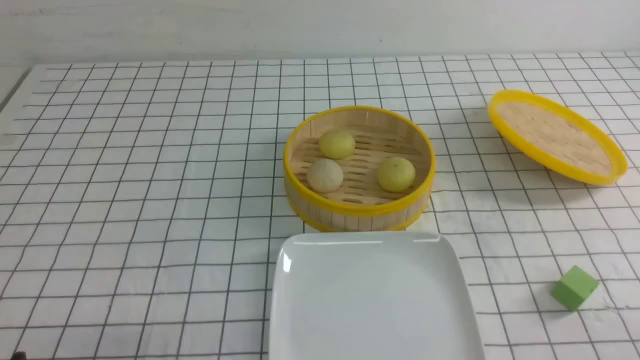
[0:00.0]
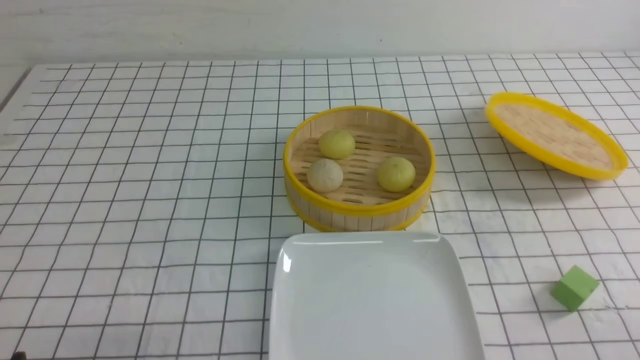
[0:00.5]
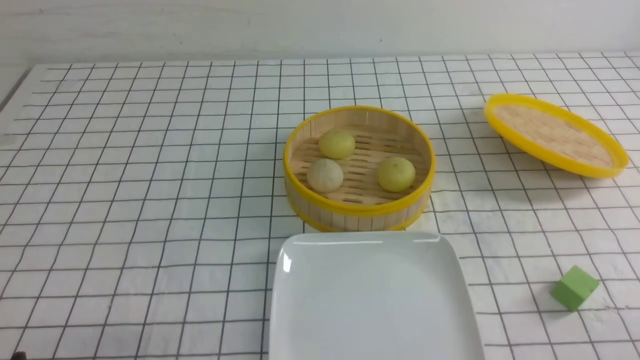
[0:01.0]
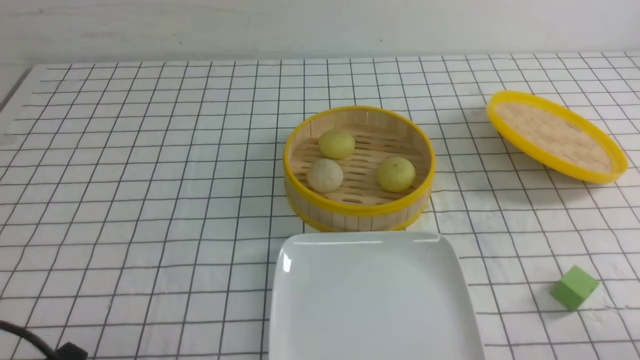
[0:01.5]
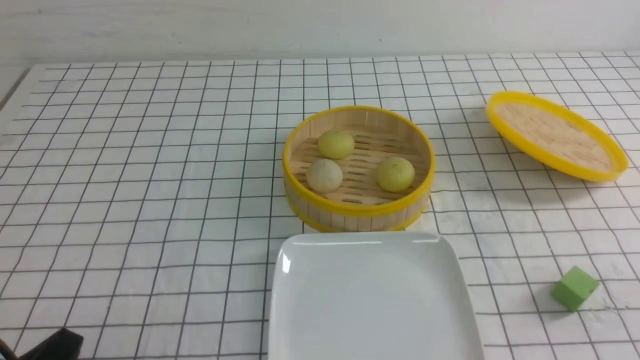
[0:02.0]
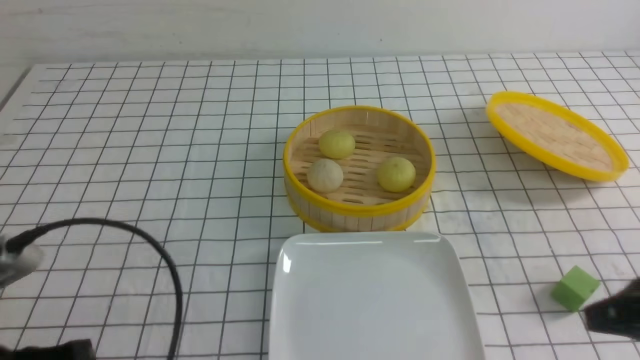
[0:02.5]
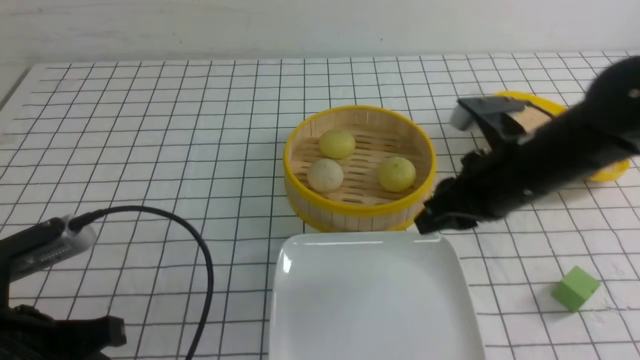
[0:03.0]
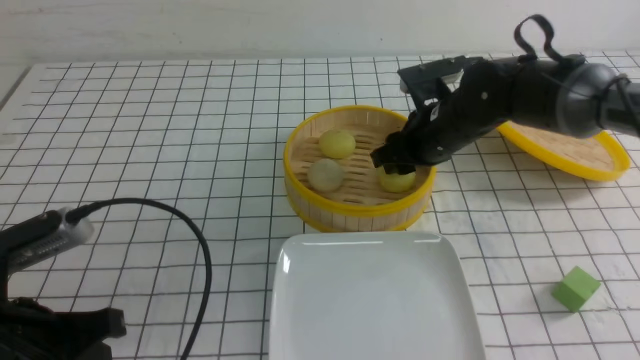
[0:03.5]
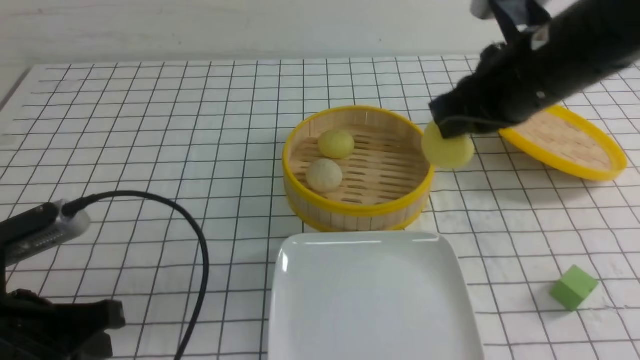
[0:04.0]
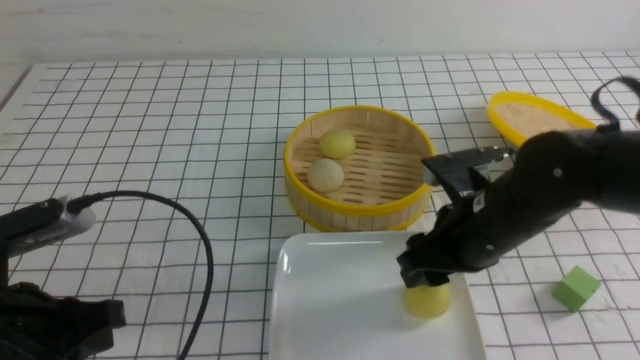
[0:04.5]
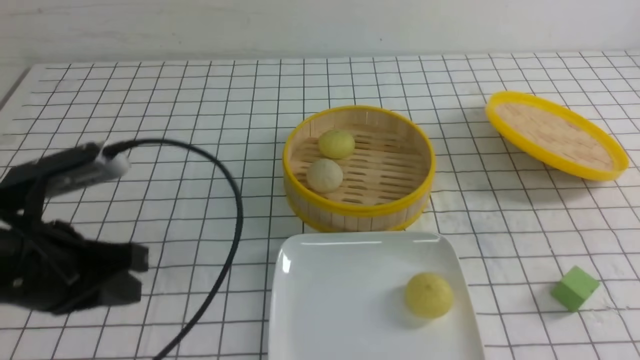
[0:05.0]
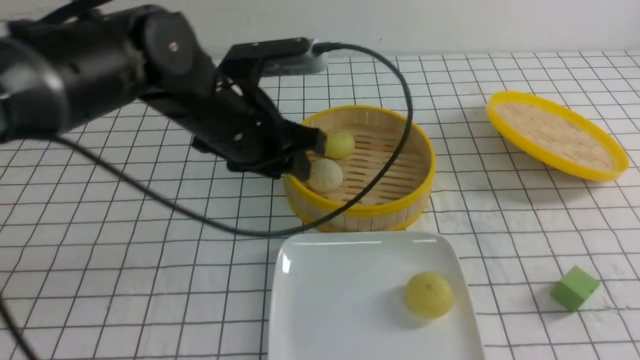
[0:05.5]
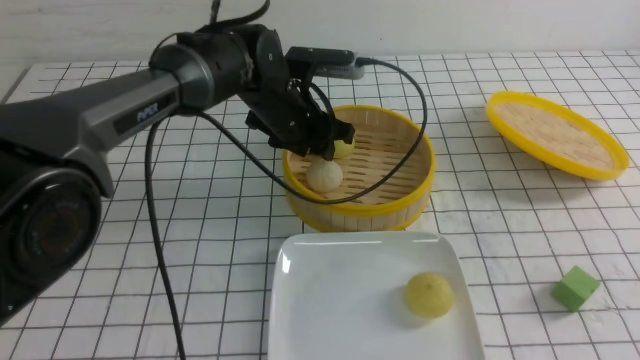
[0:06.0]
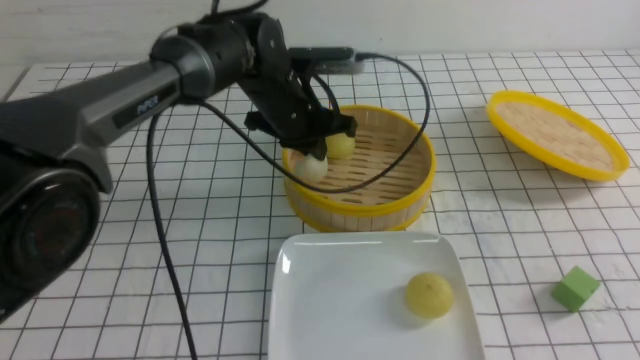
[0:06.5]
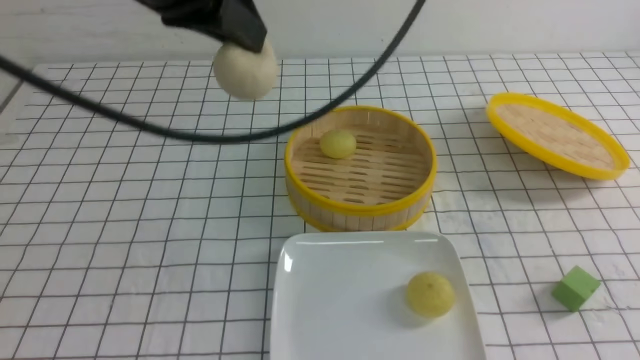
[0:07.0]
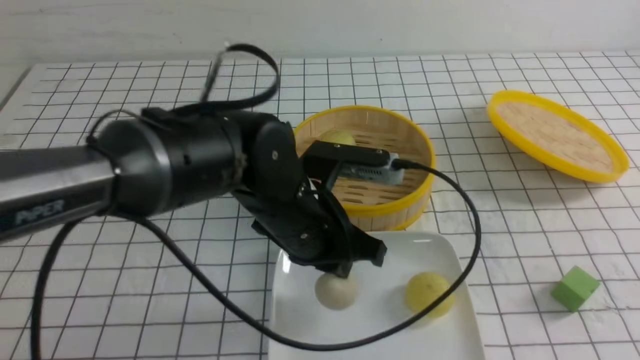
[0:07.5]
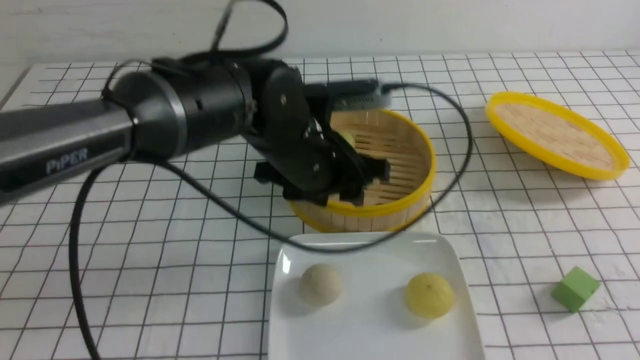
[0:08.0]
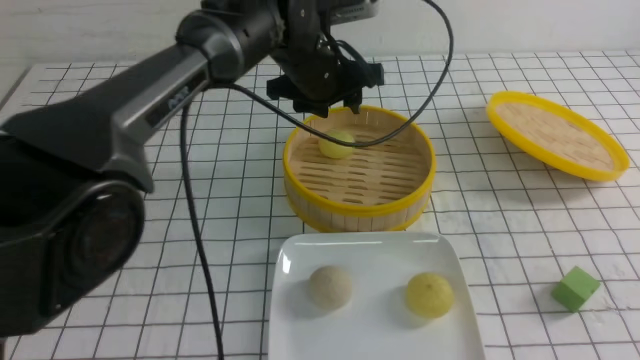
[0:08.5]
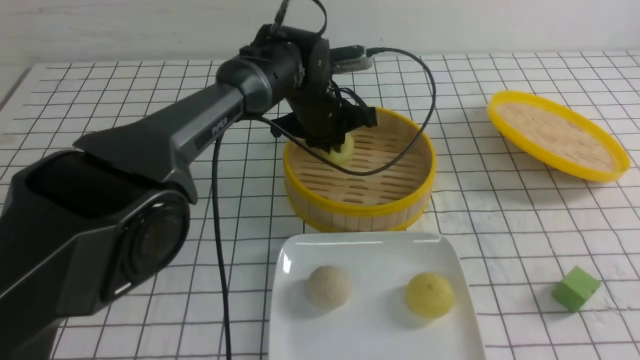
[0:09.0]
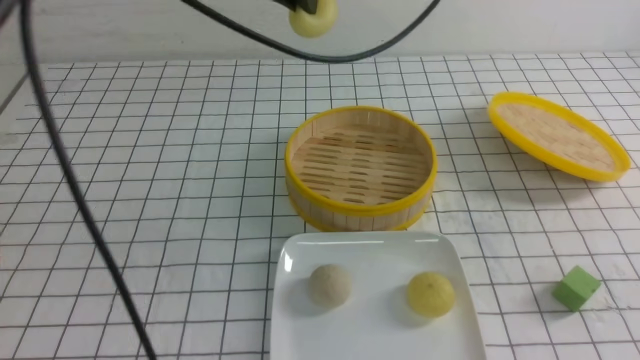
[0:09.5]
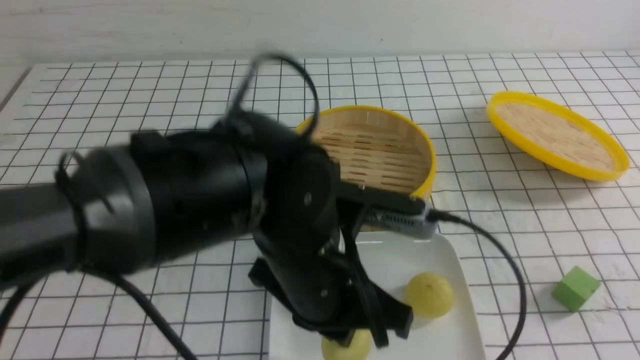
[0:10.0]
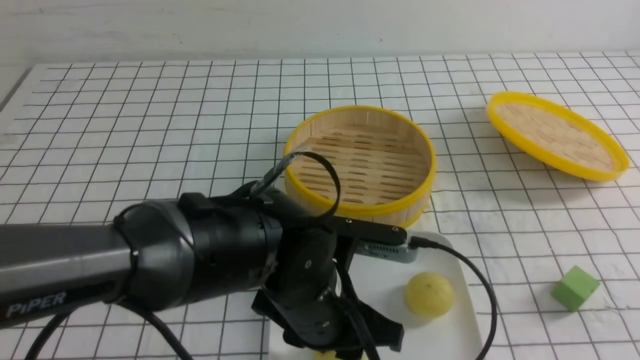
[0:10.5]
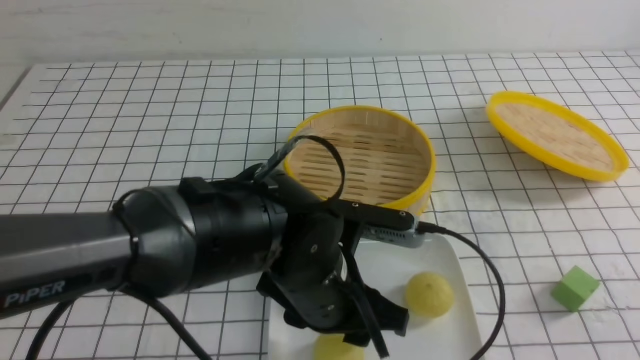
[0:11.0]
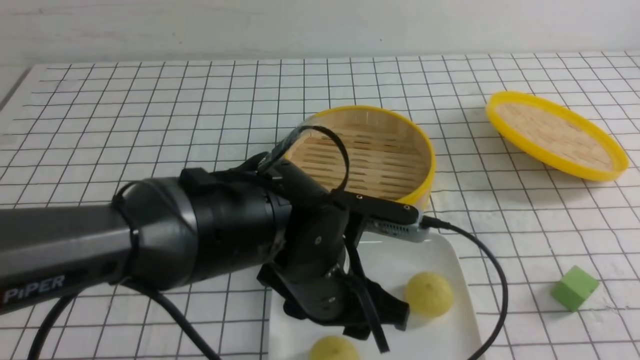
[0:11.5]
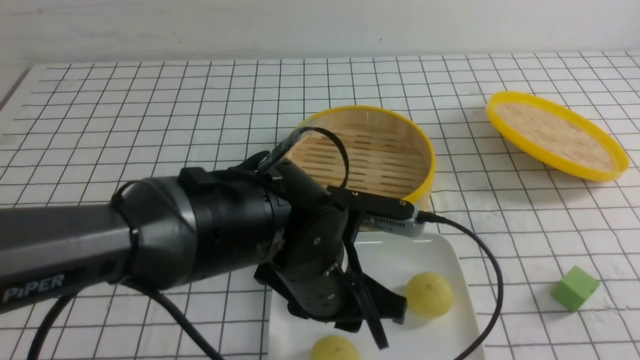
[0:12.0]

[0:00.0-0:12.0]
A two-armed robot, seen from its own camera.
Step, 0:00.0 to 0:03.5: use the right arm to grab the steamed stuffed bun that is closest to it.
Step, 0:04.5 to 0:06.0: use the left arm to grab the steamed stuffed bun that is closest to it.
Step, 0:06.5 to 0:07.5: use the left arm to put the steamed stuffed bun into the plate.
Step, 0:08.0 to 0:09.0: use the left arm to grab the steamed stuffed bun that is closest to it.
Step, 0:09.5 to 0:10.5: use the left arm to put the steamed stuffed bun into the plate.
0:02.0 to 0:04.0: The left gripper goes approximately 10 cm forward. The right gripper moves forward and to the left, some 30 cm, and opens and closes again.
0:04.0 to 0:06.0: The left gripper heads forward and to the right, covering approximately 35 cm, and opens up. Meanwhile the right gripper is displaced backward and to the right by about 25 cm, and opens, then closes once more.
0:06.0 to 0:08.0: The left gripper shifts some 10 cm backward, reaches some 20 cm upward, then returns, and closes, then opens again.
0:08.0 to 0:10.0: The left gripper heads backward, covering approximately 10 cm, and closes its fingers.
0:10.0 to 0:12.0: The left gripper opens up; the right gripper heads backward, covering roughly 10 cm, and closes its fingers.

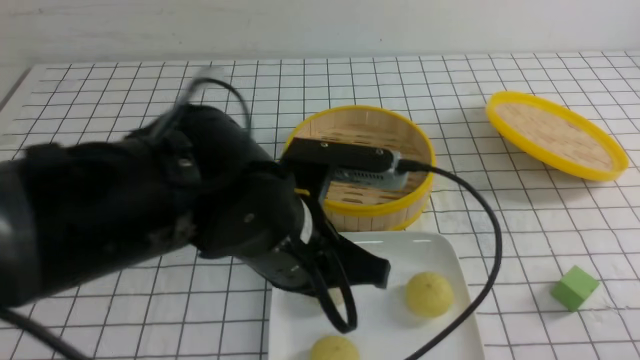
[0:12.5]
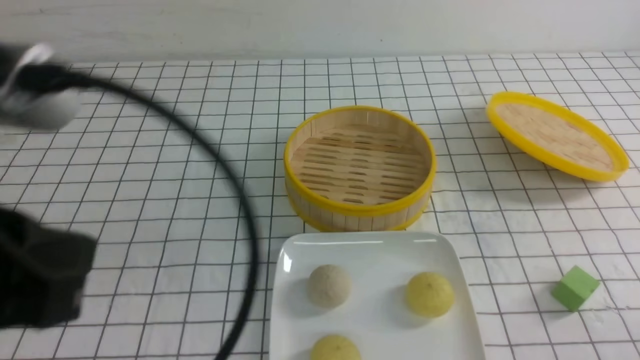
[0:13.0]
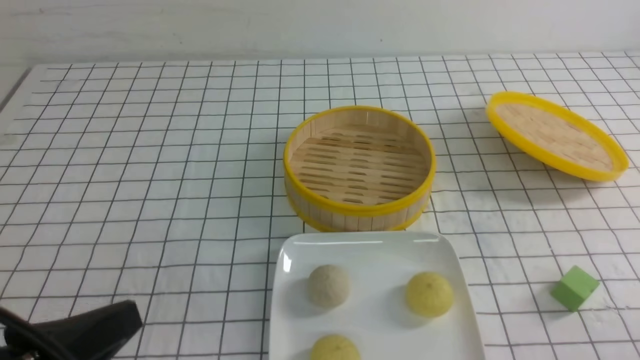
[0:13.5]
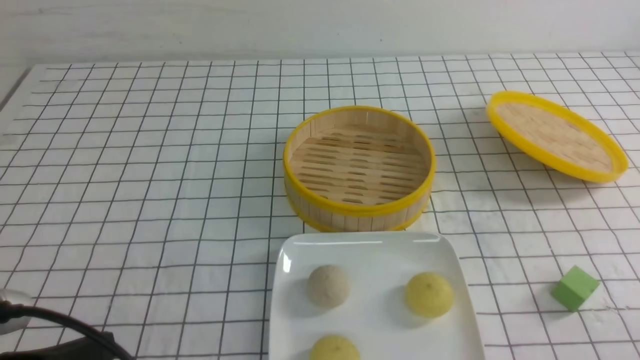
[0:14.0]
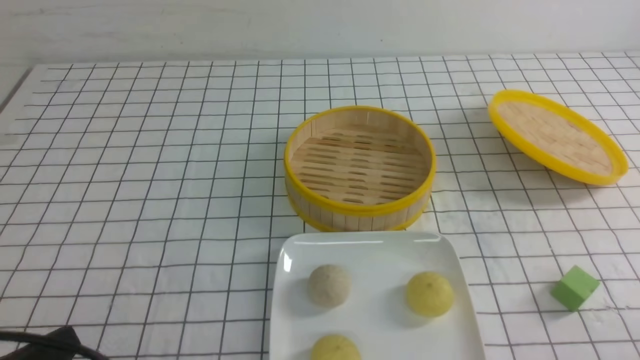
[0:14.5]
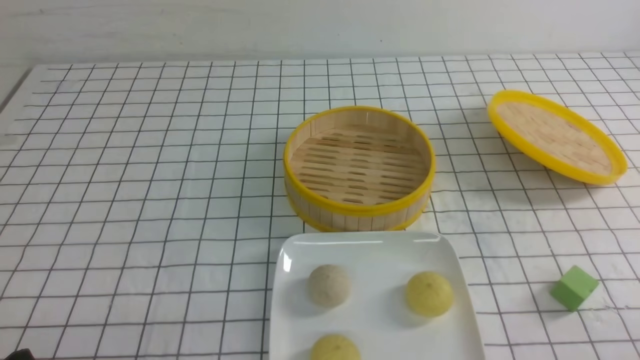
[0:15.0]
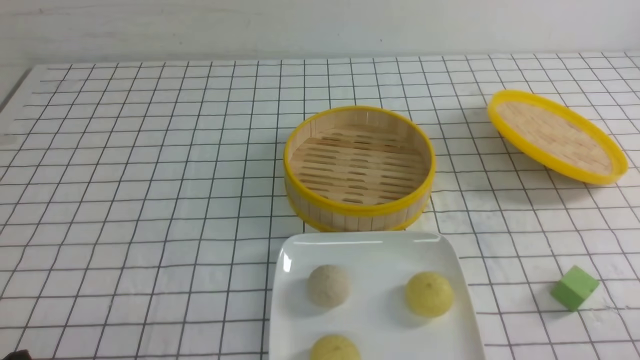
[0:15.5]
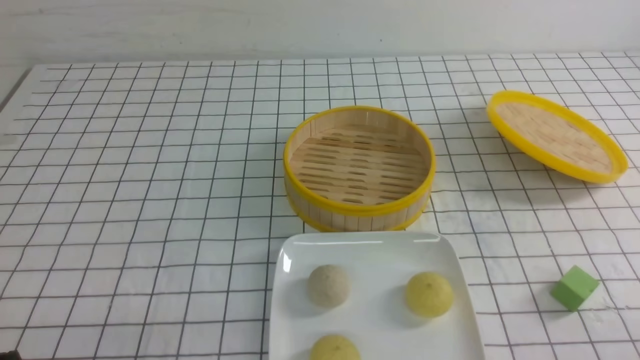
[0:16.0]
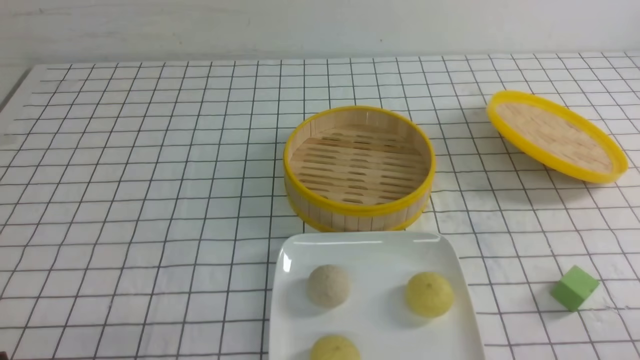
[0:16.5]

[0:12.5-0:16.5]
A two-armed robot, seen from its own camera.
0:12.5 to 0:14.5: The left gripper travels to the left and backward by roughly 25 cm.
0:14.5 to 0:16.5: The left gripper moves approximately 5 cm.

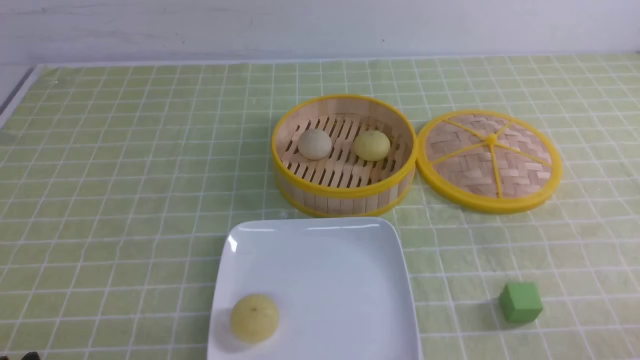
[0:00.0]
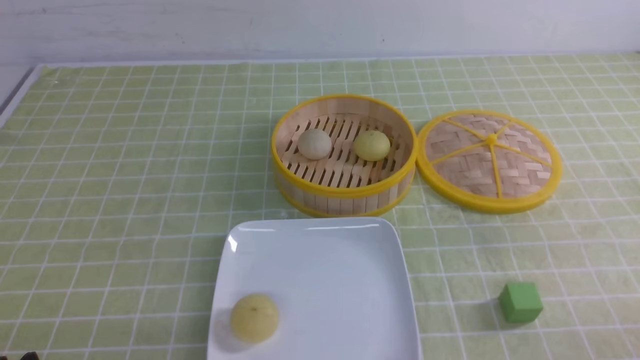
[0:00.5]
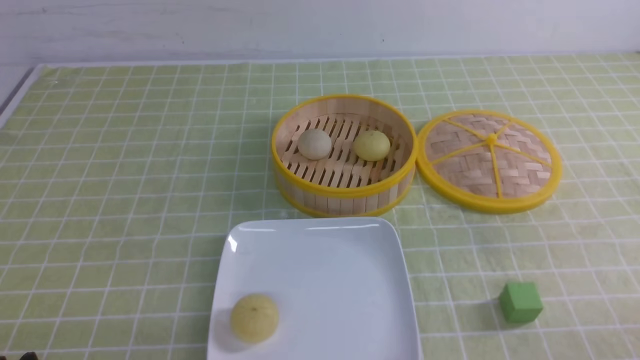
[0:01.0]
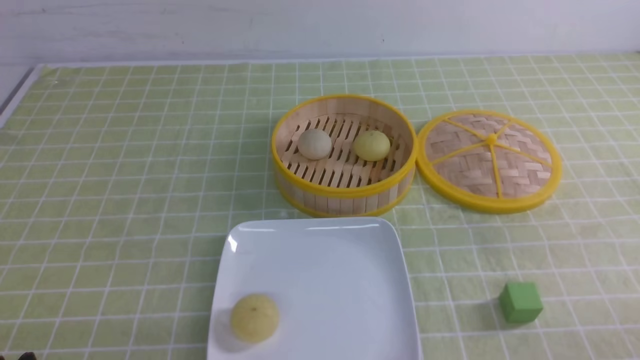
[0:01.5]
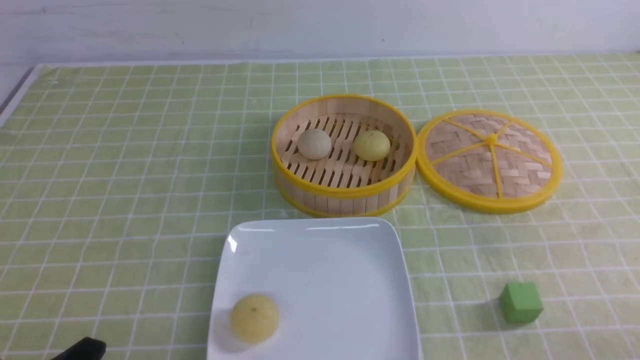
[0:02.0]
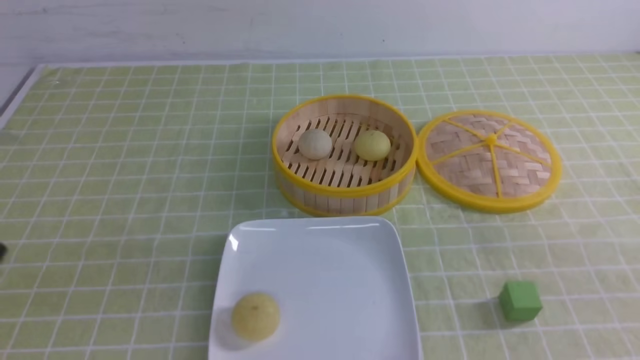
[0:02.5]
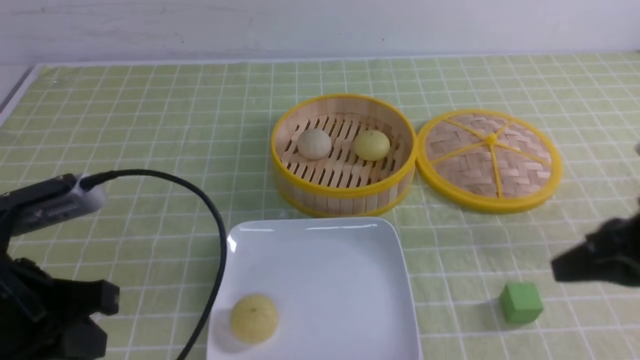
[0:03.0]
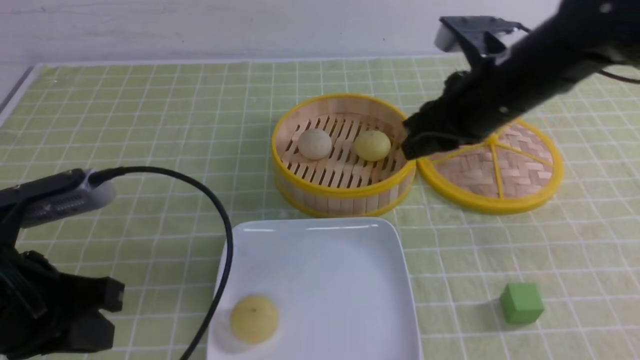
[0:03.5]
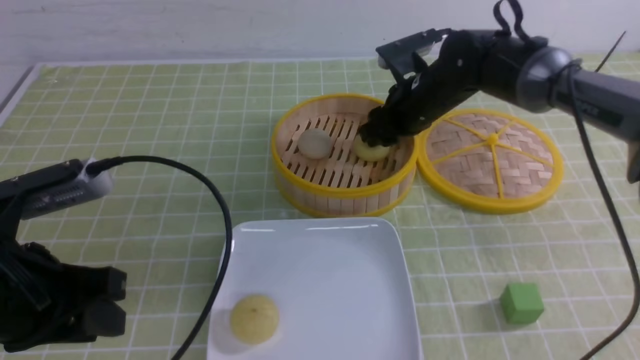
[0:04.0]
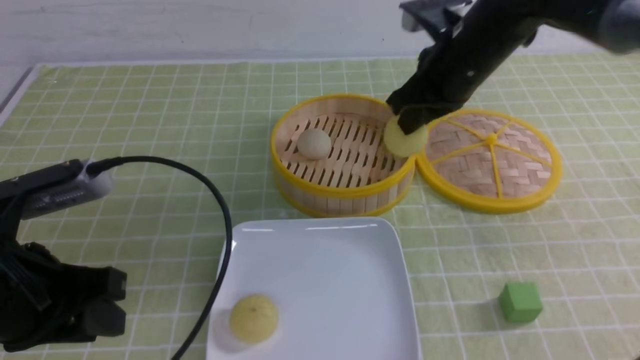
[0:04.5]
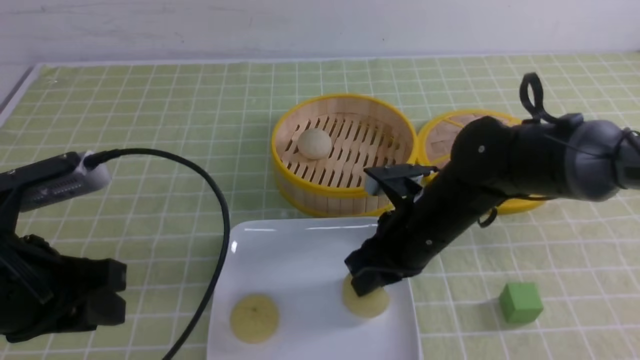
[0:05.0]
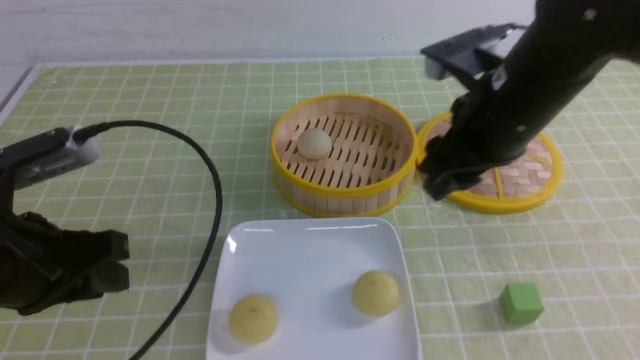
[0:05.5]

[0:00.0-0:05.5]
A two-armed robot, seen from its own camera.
Step, 0:00.0 to 0:04.0: use the right arm to grab the steamed stuffed bun that is closest to it.
Step, 0:04.5 to 0:05.0: use the right arm to put the steamed stuffed bun into the plate.
0:02.0 to 0:03.5: The left gripper travels forward and upward by about 15 cm, and closes up. The right gripper goes some 35 cm forward and to the left, and closes, then opens again.
0:03.5 to 0:05.5: The right gripper moves backward, about 5 cm, and closes, then reopens.
